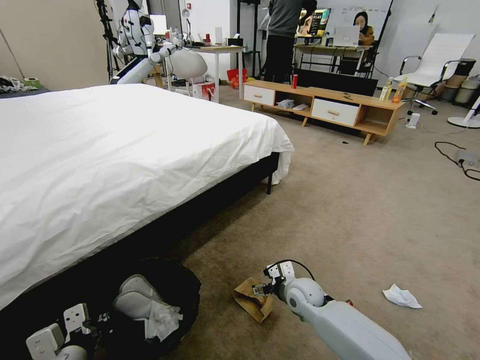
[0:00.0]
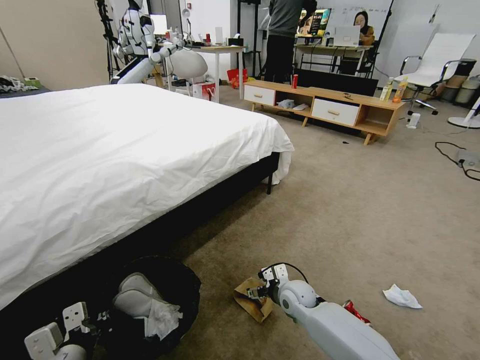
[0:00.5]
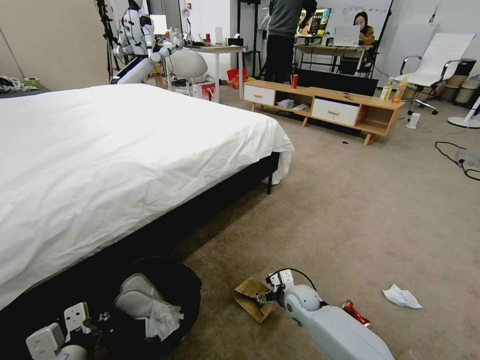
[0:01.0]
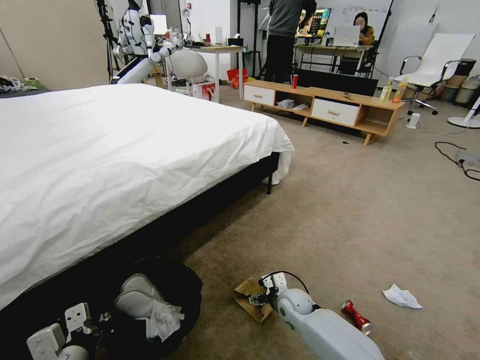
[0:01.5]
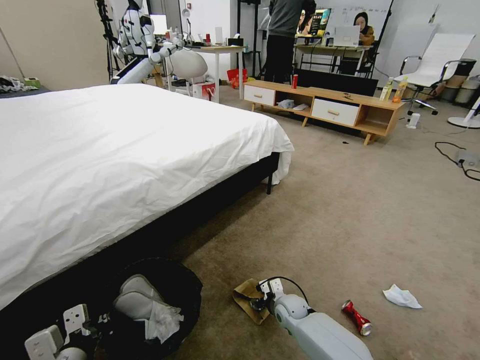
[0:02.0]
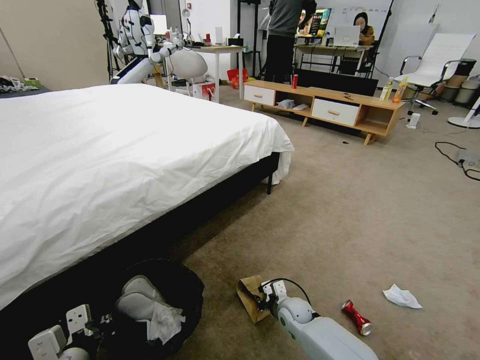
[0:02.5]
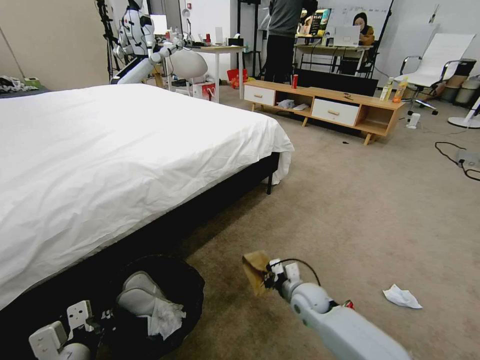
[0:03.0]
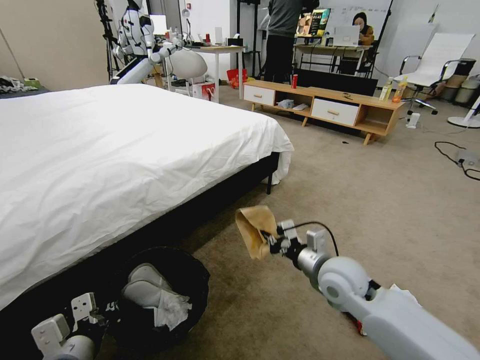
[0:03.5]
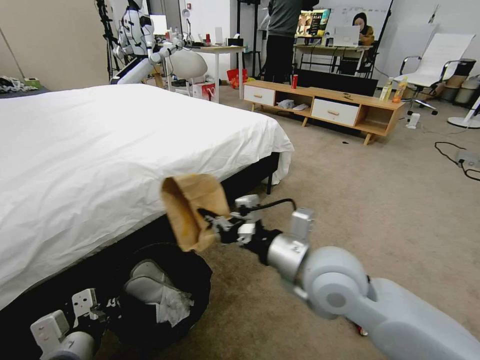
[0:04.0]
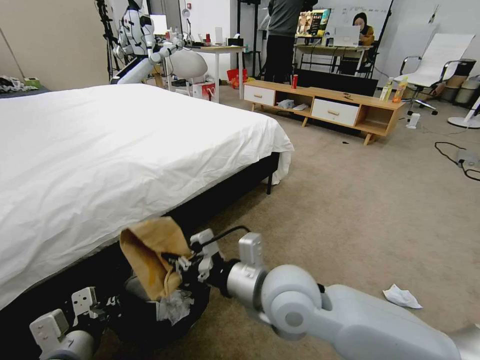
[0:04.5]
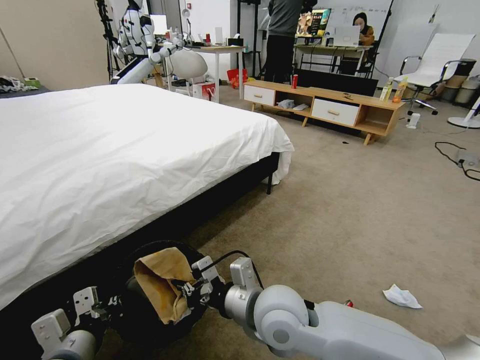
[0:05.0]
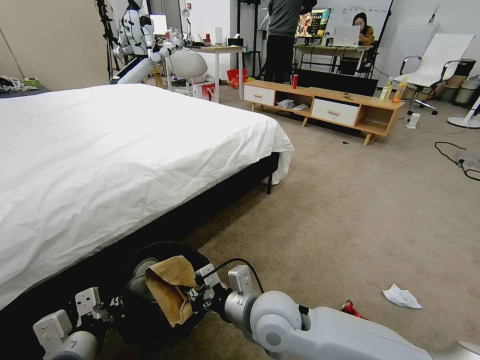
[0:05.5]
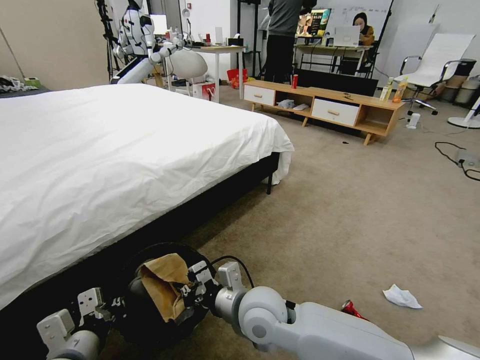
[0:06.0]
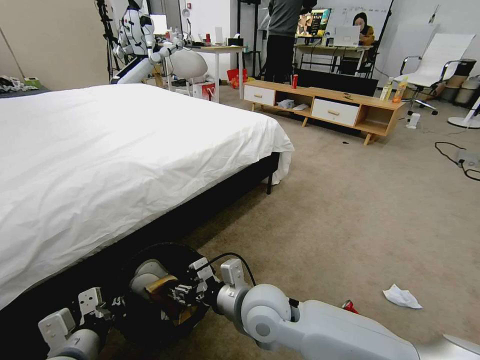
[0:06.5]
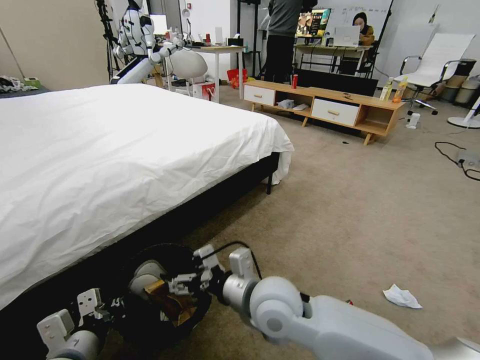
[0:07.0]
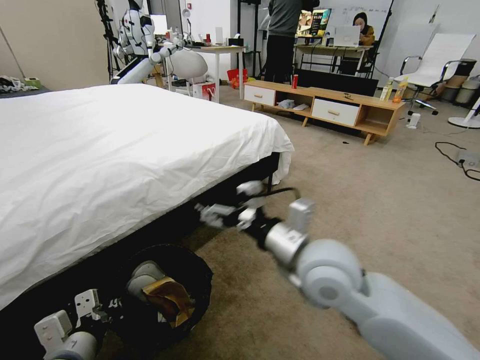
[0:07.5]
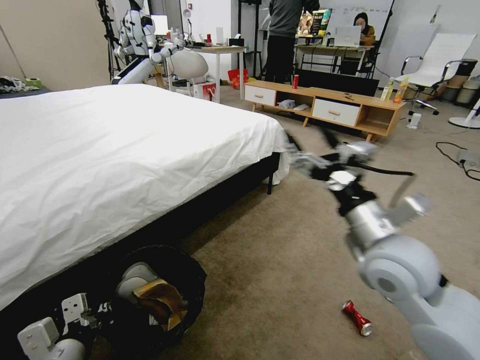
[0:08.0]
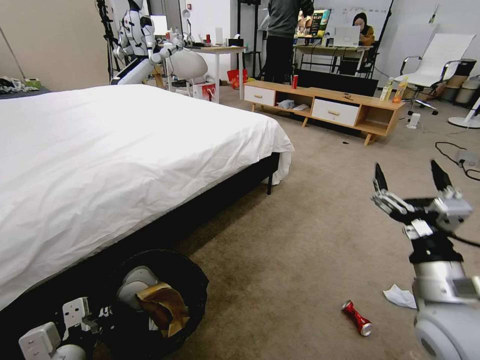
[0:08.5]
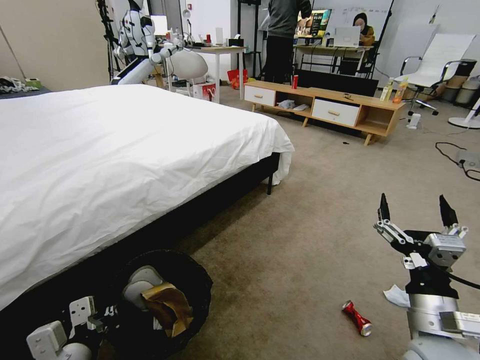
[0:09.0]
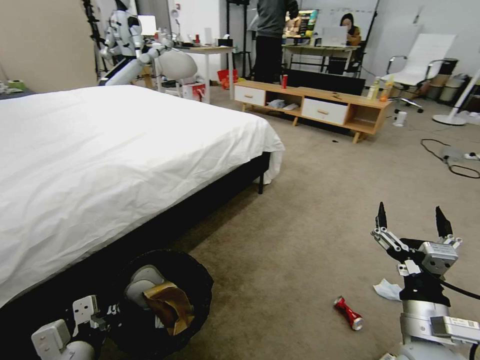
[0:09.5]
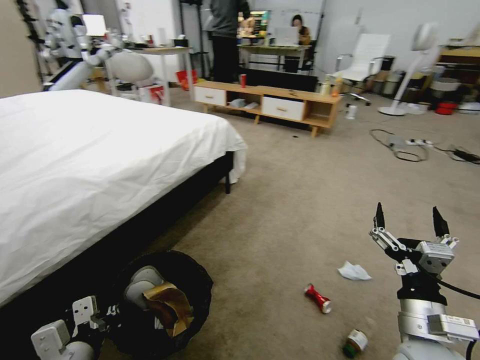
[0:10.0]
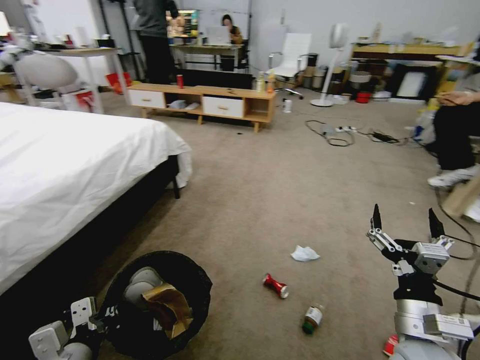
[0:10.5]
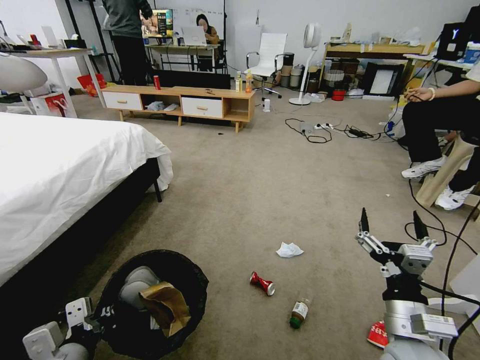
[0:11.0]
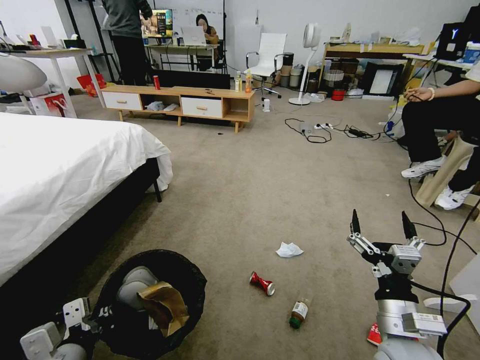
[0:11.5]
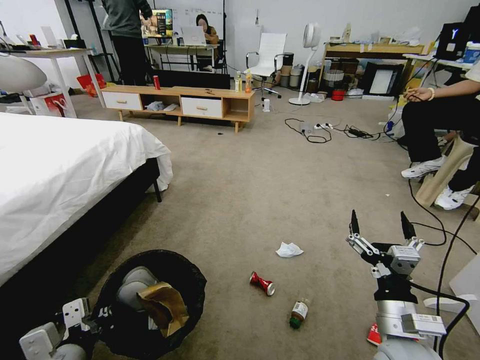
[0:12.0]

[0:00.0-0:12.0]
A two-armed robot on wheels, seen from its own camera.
Task of the whole recording: Pick up the trash bin and place the garbage on the floor into it.
0:00.0 to 0:02.0: The right gripper goes some 10 cm downward.
0:02.0 to 0:04.0: The right gripper shifts some 40 cm upward, and closes its fingers.
0:04.0 to 0:06.0: The right gripper moves downward and to the left, approximately 15 cm.
0:06.0 to 0:08.0: The right gripper heads to the right and upward, covering approximately 25 cm, and opens up.
0:08.0 to 0:10.0: The right gripper travels downward, backward and to the right by about 20 cm.

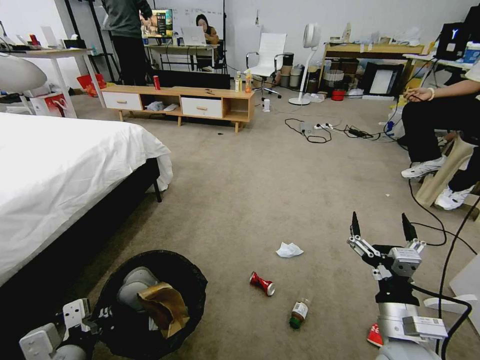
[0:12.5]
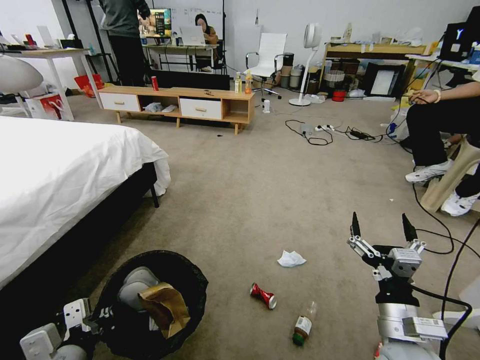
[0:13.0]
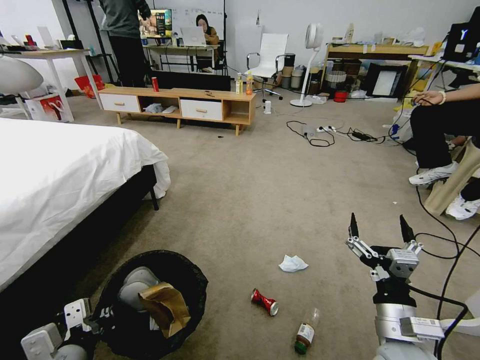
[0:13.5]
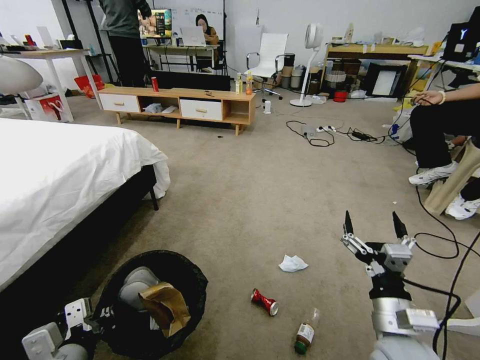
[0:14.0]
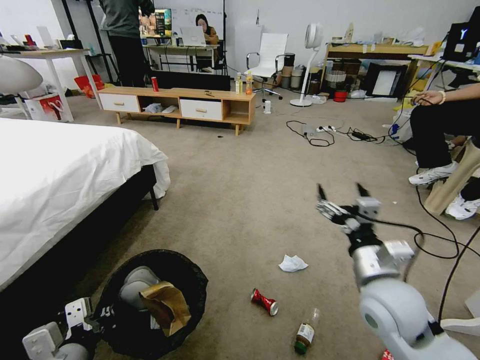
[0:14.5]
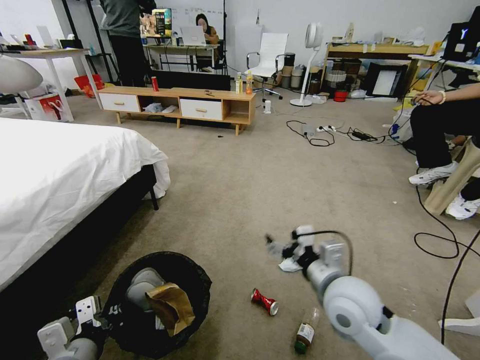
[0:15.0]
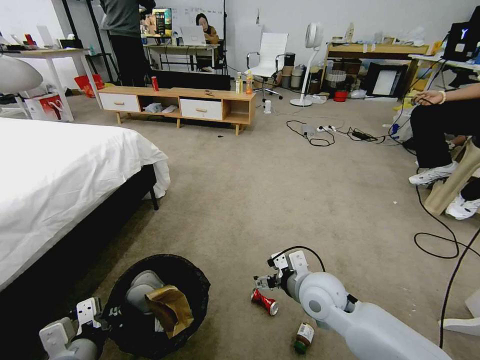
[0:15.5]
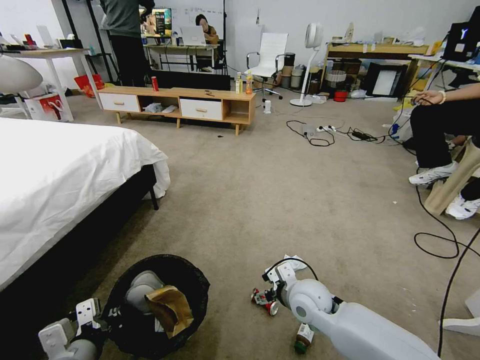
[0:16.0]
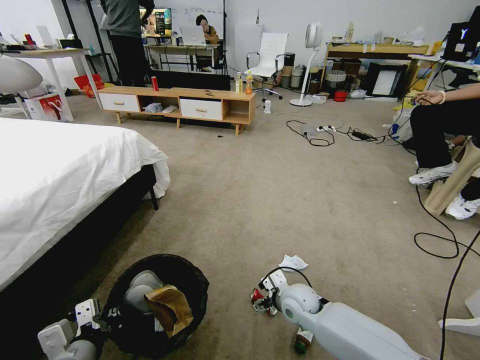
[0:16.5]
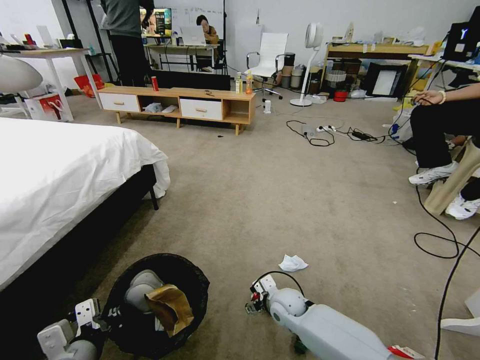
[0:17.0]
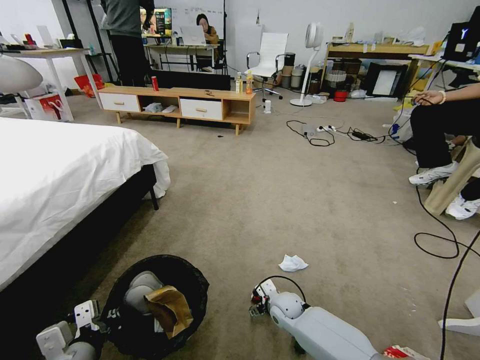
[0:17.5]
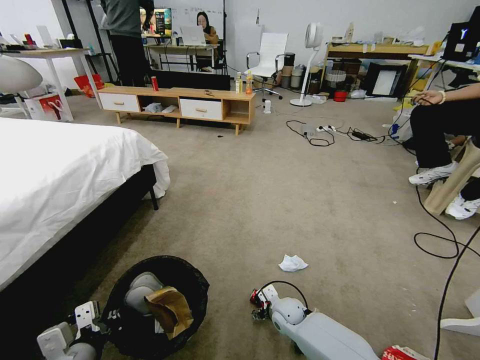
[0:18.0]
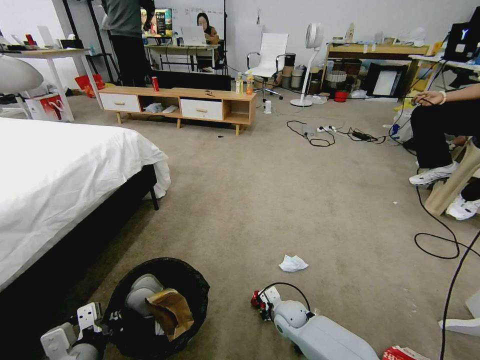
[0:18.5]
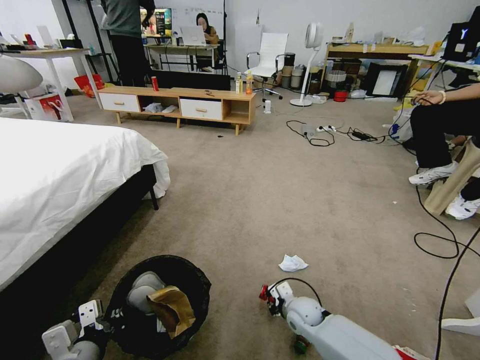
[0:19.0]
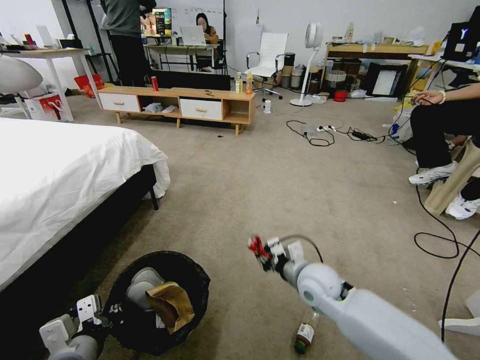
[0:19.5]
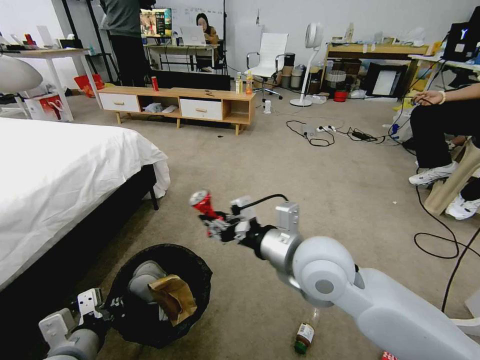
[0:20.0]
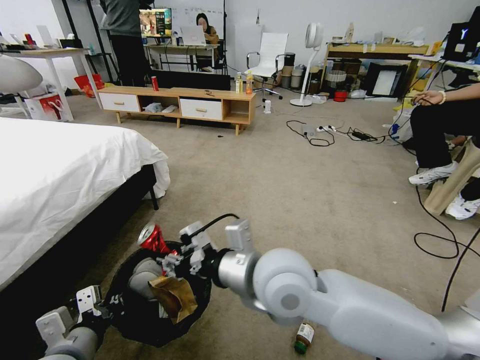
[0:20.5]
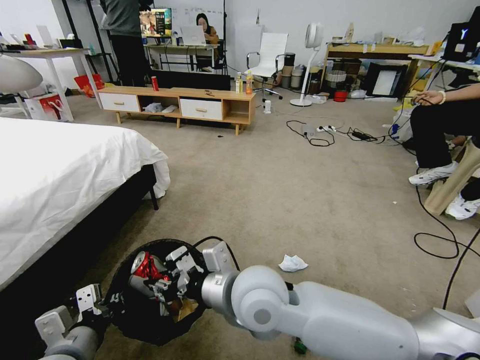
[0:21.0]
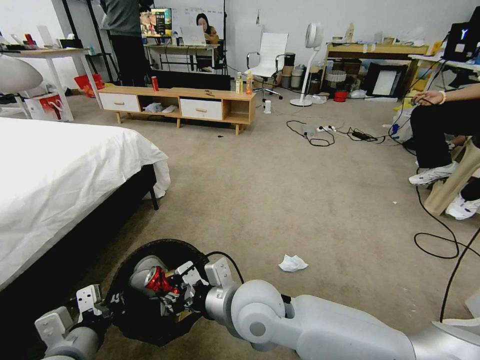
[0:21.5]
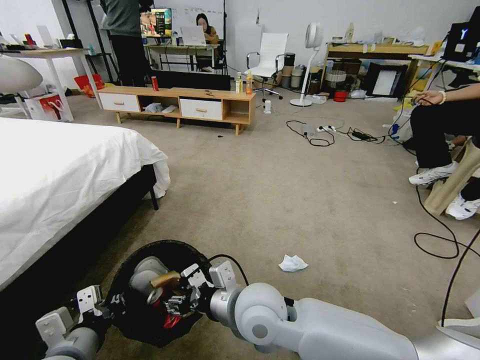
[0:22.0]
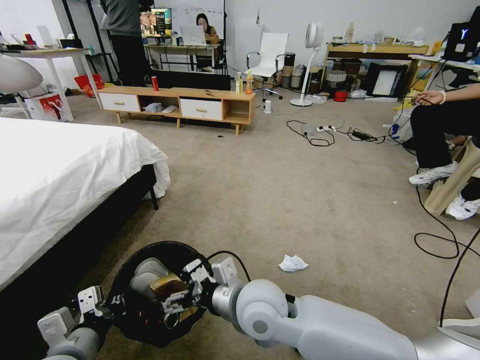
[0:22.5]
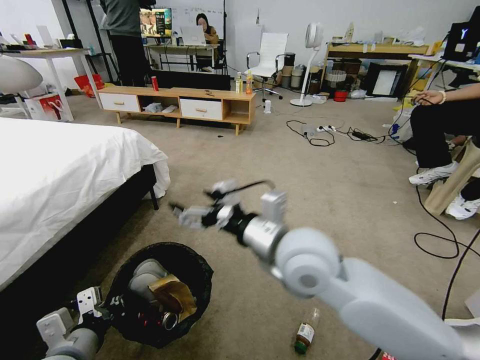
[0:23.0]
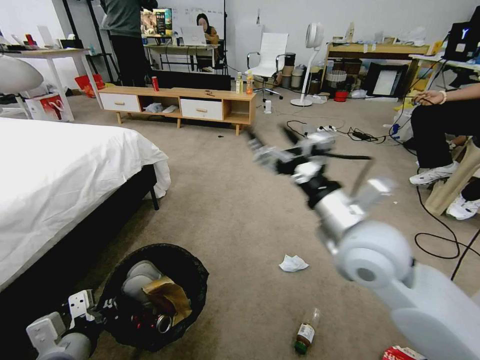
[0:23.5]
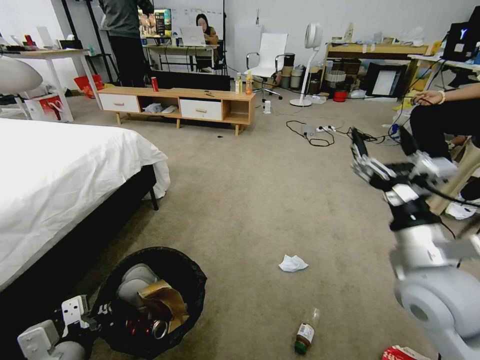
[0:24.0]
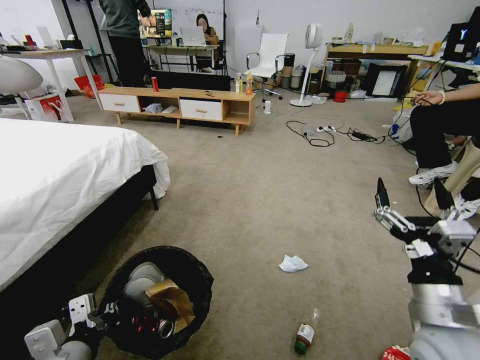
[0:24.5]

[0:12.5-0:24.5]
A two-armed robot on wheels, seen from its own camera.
Task of the whole recording: Pick up the trash bin and place the garbage on the floor into it.
0:12.5 to 0:14.5: The right gripper shifts roughly 10 cm forward and upward.
0:14.5 to 0:16.5: The right gripper heads downward, forward and to the left, covering approximately 25 cm.
0:16.5 to 0:18.5: The right gripper moves downward, about 10 cm, and closes.
0:18.5 to 0:20.5: The right gripper is displaced upward by some 40 cm.
0:20.5 to 0:22.5: The right gripper travels downward by roughly 10 cm, and opens up.
0:22.5 to 0:24.5: The right gripper goes about 25 cm to the right.

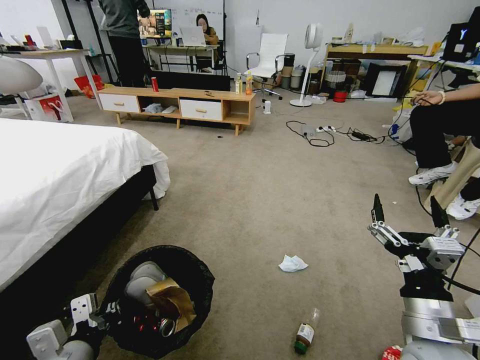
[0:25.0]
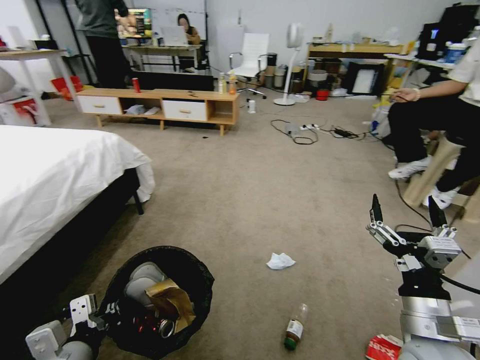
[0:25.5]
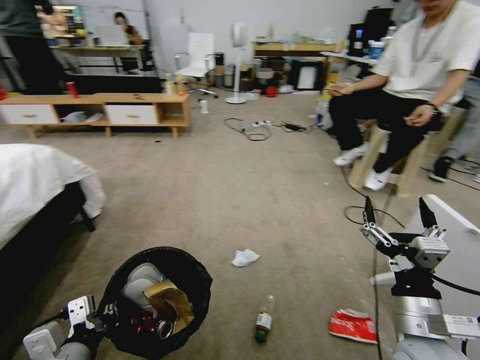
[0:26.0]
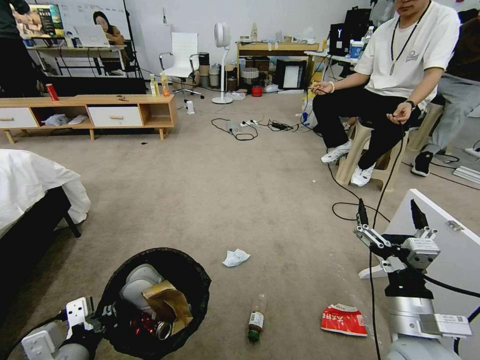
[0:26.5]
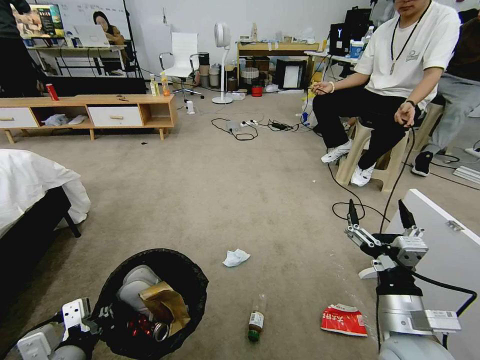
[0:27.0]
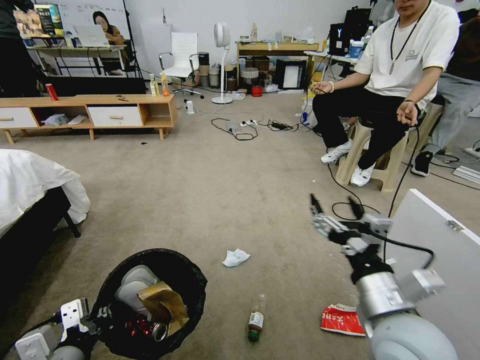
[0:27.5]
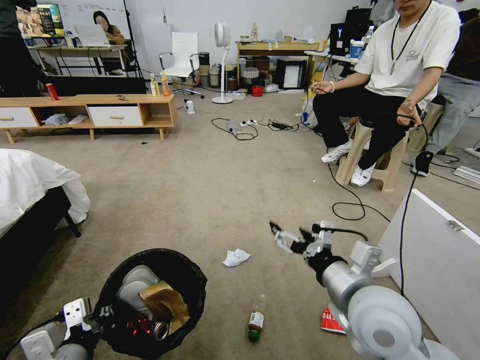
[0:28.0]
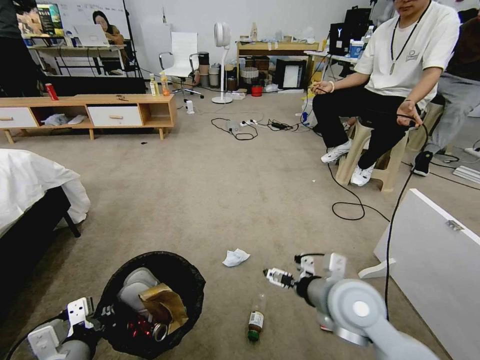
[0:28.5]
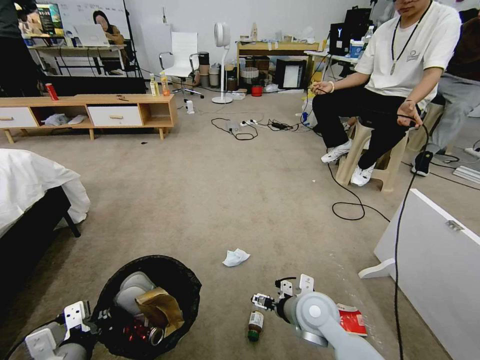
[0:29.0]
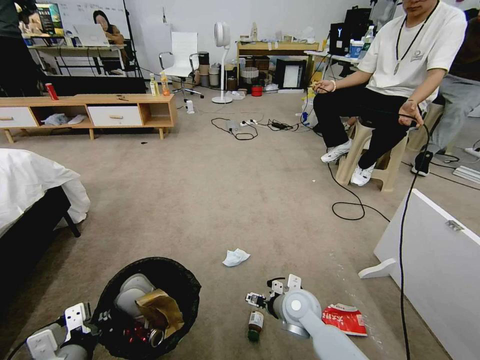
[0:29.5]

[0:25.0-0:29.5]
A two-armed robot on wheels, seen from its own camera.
Task of the whole recording: Pick up the trash bin and place the garbage on the floor into it.
0:27.0 to 0:29.5: The right gripper travels forward, downward and to the left by about 25 cm.
